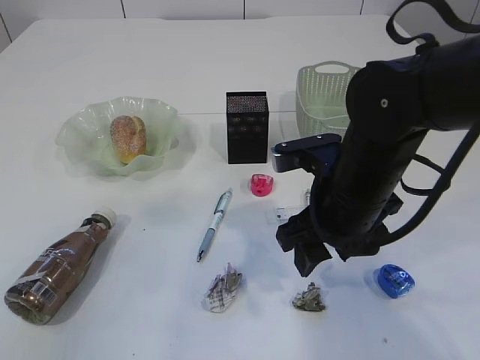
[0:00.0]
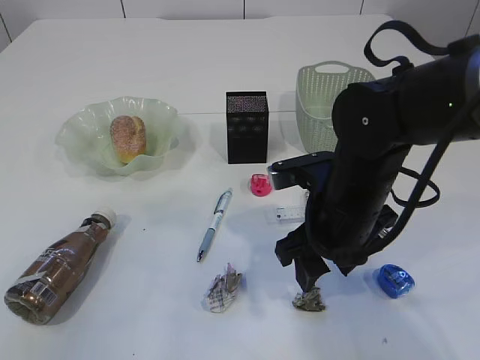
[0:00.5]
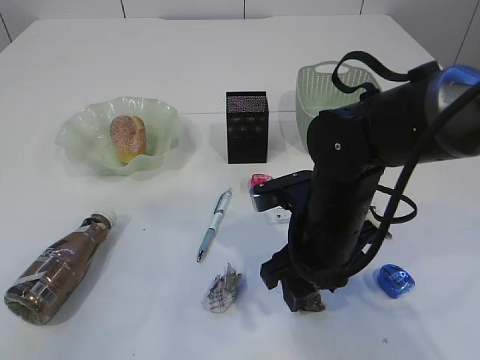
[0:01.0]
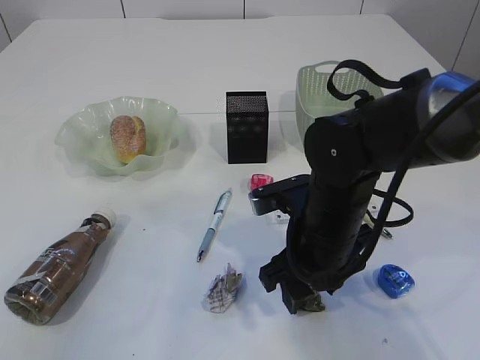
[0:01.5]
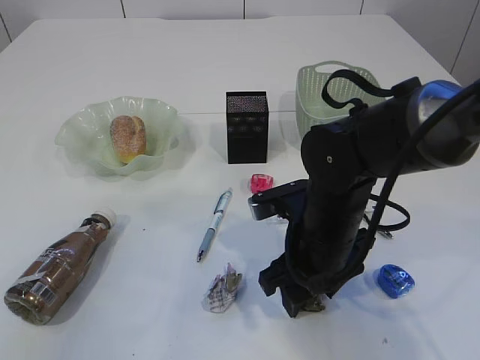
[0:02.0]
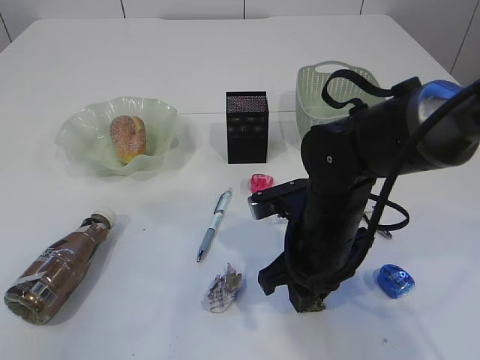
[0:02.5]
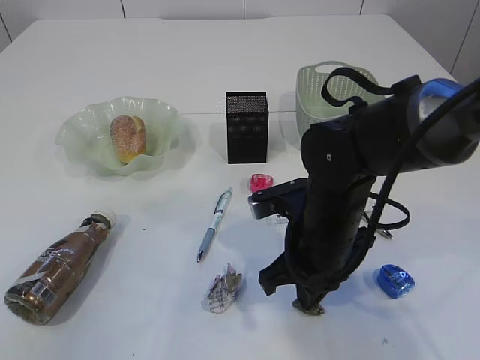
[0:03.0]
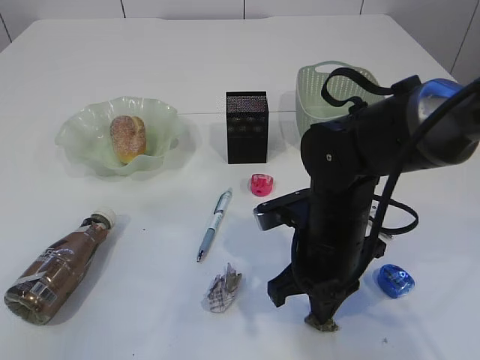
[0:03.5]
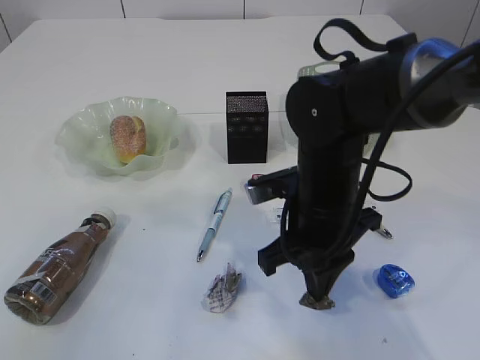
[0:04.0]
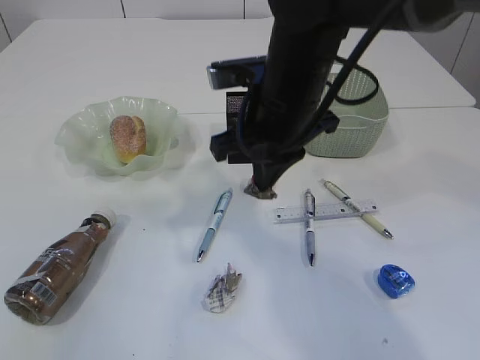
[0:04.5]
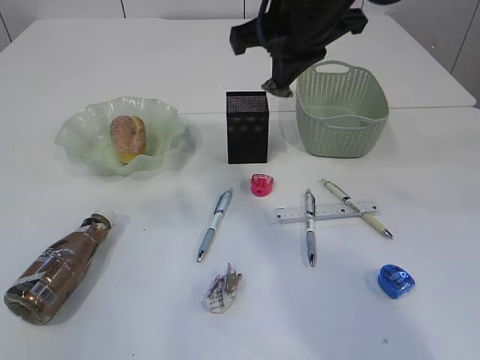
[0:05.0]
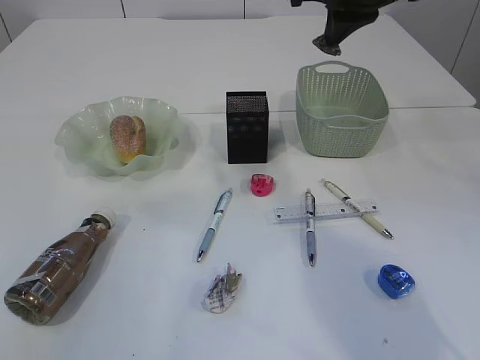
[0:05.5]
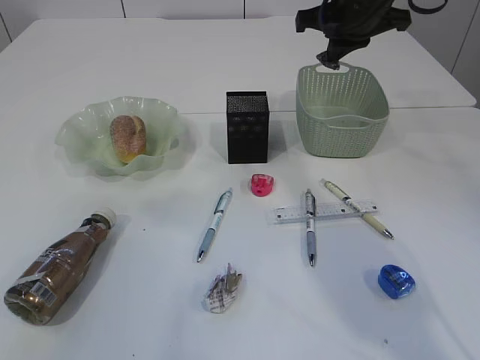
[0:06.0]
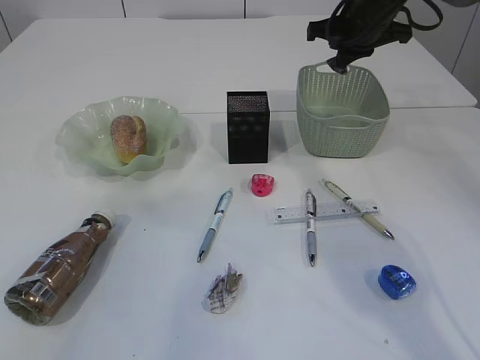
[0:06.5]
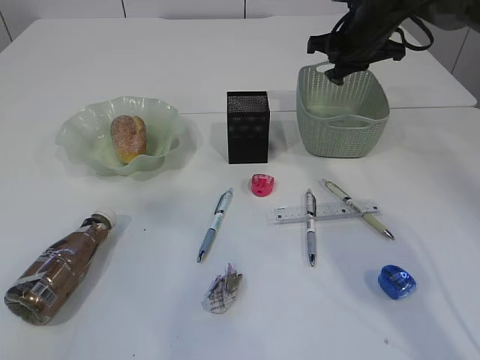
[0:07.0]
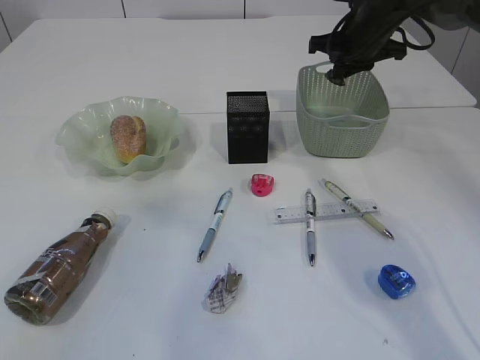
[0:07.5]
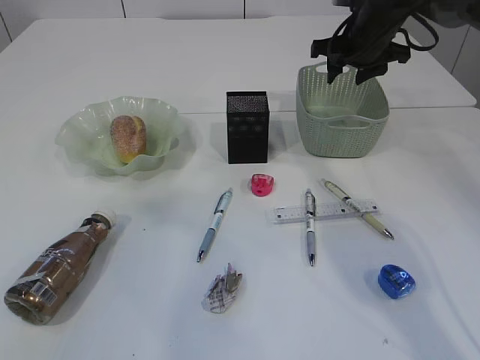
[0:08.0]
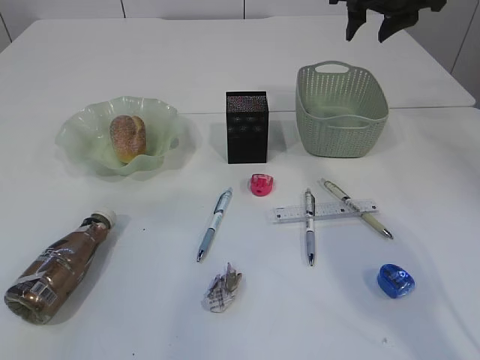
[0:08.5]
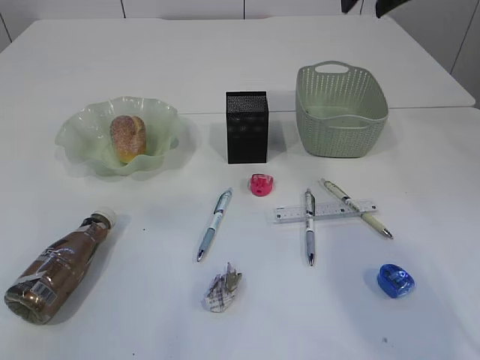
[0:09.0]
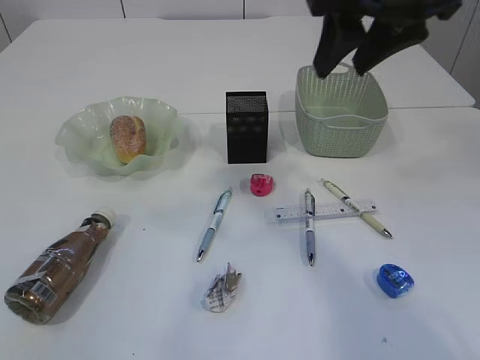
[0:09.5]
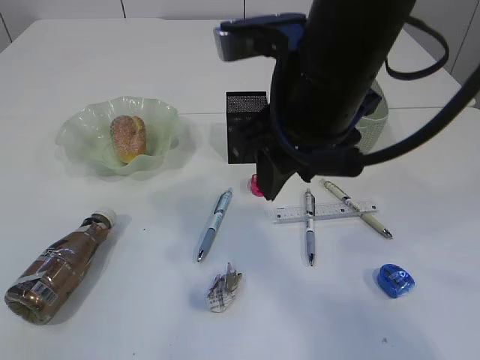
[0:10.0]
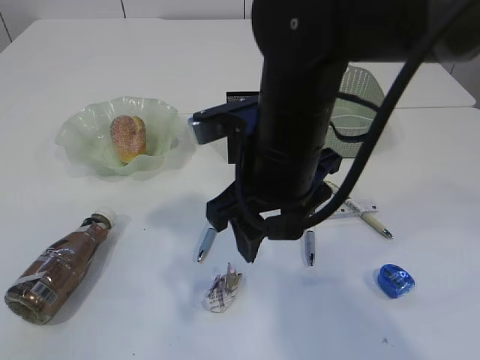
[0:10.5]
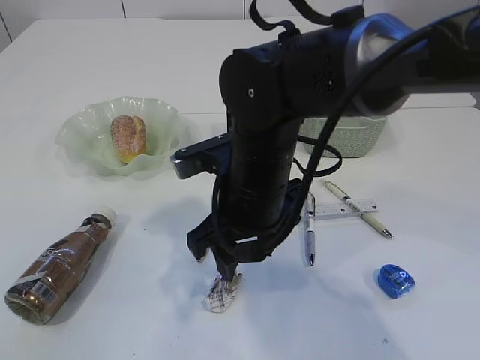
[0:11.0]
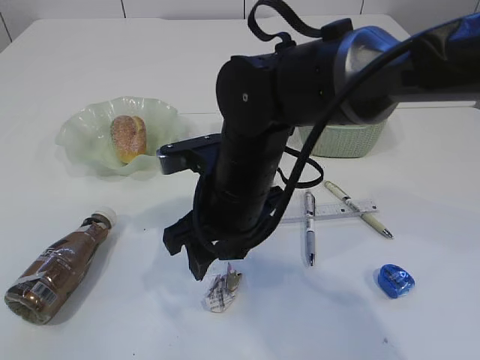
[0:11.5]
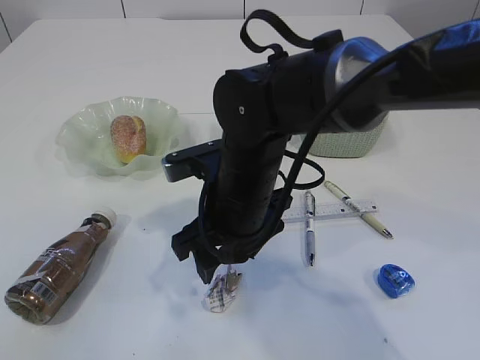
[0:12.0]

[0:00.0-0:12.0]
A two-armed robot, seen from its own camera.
Step, 0:00.0 to 0:04.0: Pick up the waste paper.
Step, 0:04.5 to 0:07.0: Place the waste paper in the basket.
0:00.0 to 0:02.0: The right gripper is displaced downward by approximately 5 cm.
0:02.0 to 0:04.0: The right gripper closes its fingers.
0:04.0 to 0:06.0: The right gripper travels forward, upward and to the right by roughly 25 cm.
0:06.0 to 0:08.0: The right gripper heads downward and forward, covering roughly 10 cm, and opens.
0:08.0 to 0:10.0: The right gripper shifts approximately 30 cm backward and to the left.
0:10.0 to 0:12.0: The right gripper moves downward and to the left, approximately 15 cm.

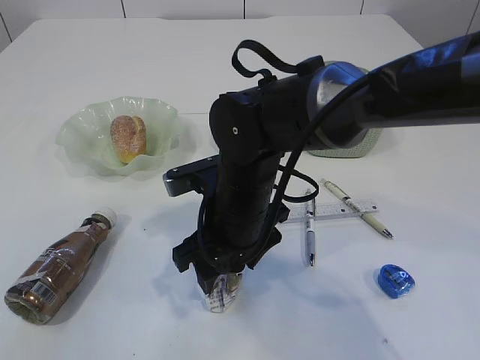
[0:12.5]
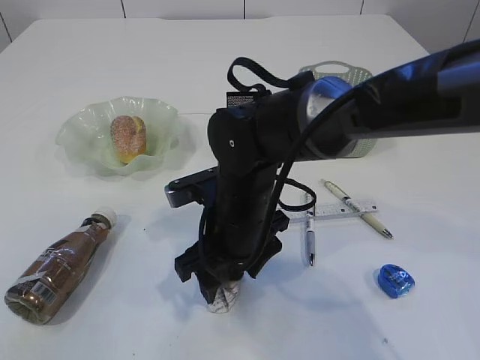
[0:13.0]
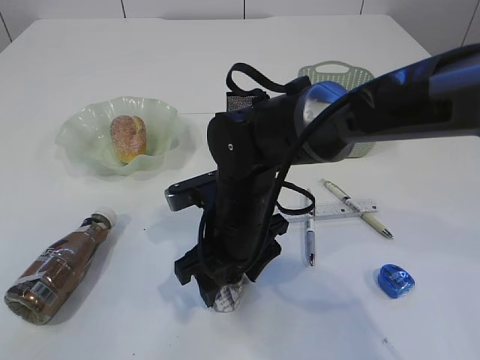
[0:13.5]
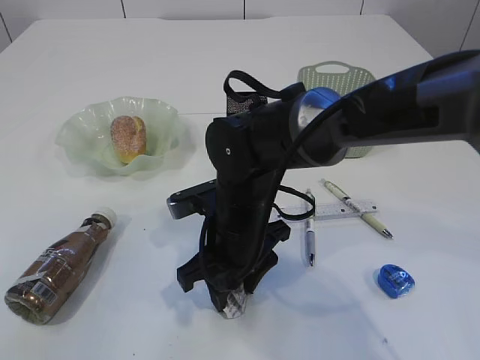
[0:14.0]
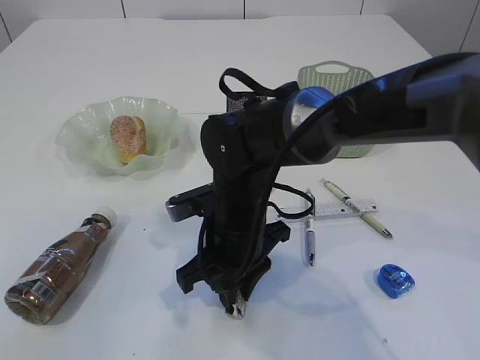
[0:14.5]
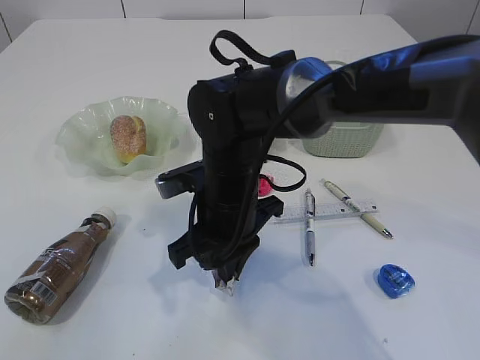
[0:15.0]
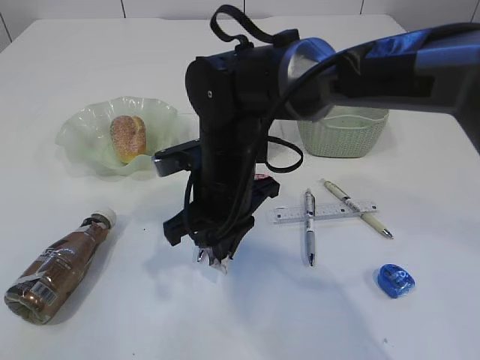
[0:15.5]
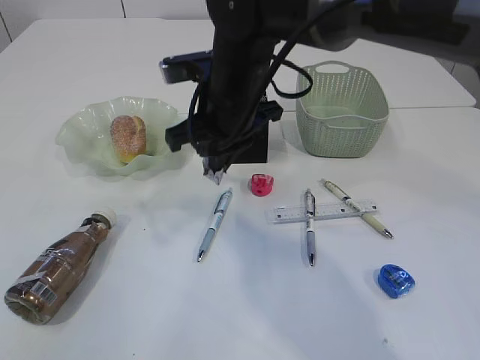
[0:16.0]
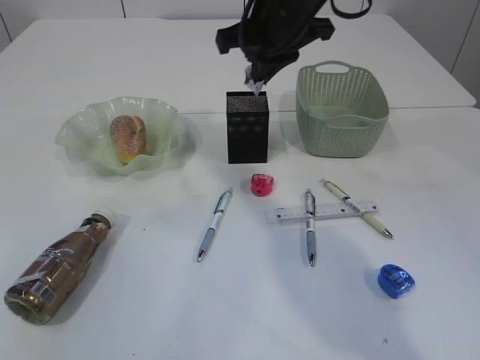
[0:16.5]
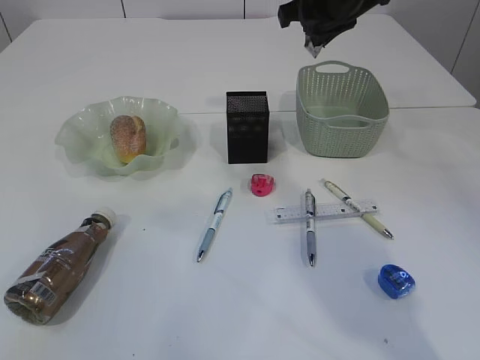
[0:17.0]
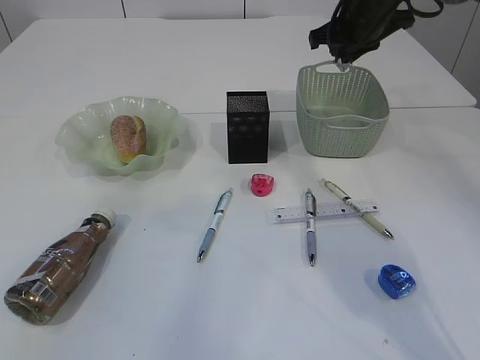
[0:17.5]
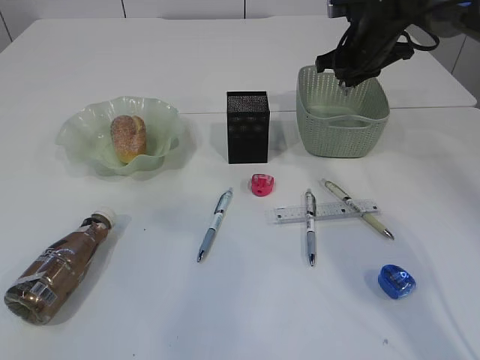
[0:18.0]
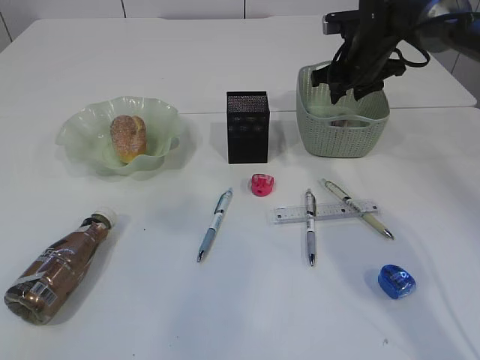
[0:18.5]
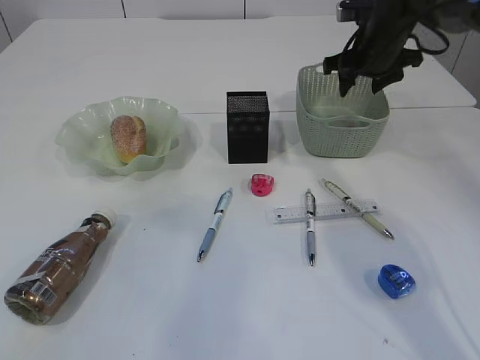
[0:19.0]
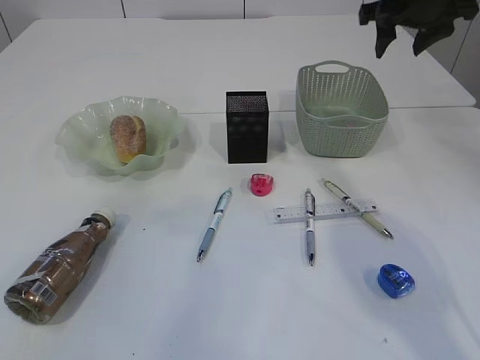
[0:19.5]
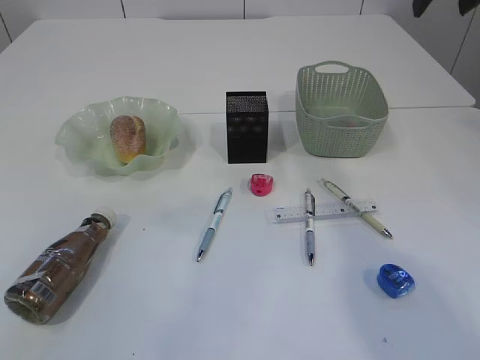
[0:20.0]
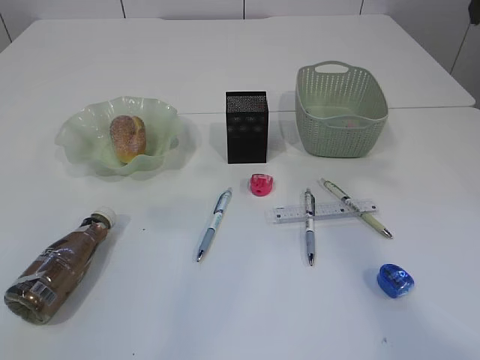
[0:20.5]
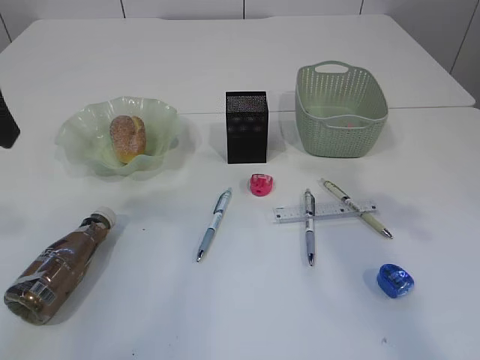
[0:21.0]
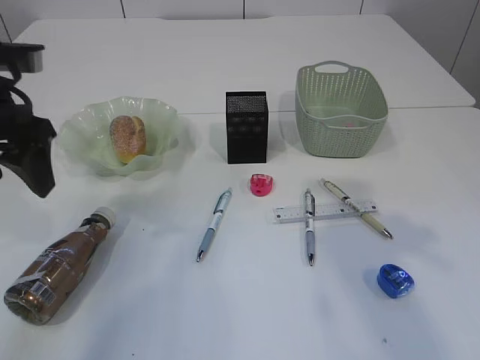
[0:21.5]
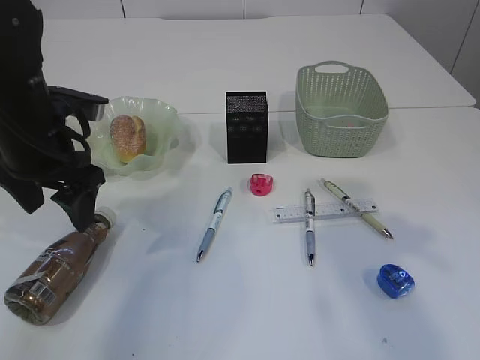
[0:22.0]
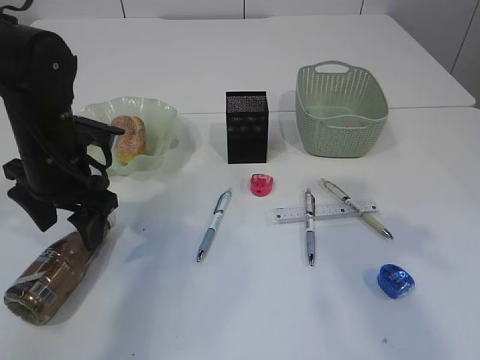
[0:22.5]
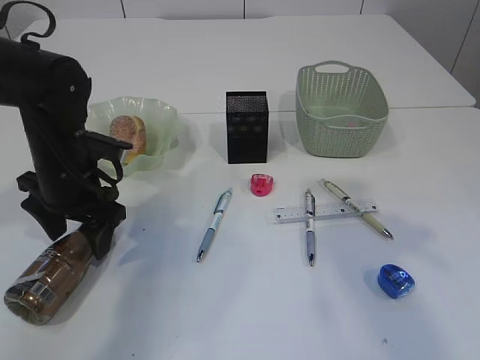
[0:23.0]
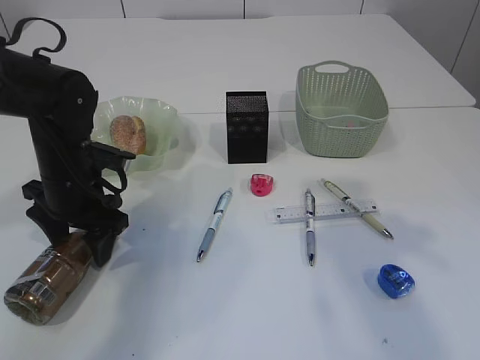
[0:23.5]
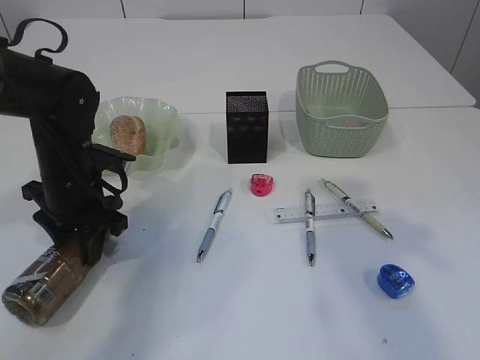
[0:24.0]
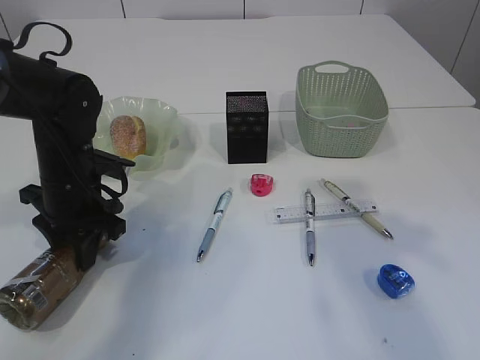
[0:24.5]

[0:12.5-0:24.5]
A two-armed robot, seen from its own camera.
Step, 0:12.5 to 0:15.5: Pick up the waste paper.
Step, 0:16.0 to 0:19.0: Place the waste paper in the basket.
0:12.5 to 0:14.5: The right gripper closes up.
0:14.5 to 0:16.5: The right gripper travels upward and forward by some 20 cm, and closes.
0:16.5 to 0:18.5: The right gripper is displaced to the right, forward and downward by approximately 20 cm, and opens its fingers.
0:18.5 to 0:20.5: The right gripper moves backward and upward, approximately 30 cm.
0:20.5 to 0:22.5: The left gripper goes roughly 30 cm downward and forward; the right gripper travels backward by about 10 cm.
0:22.5 to 0:24.5: The left gripper travels downward by roughly 5 cm, and closes up.

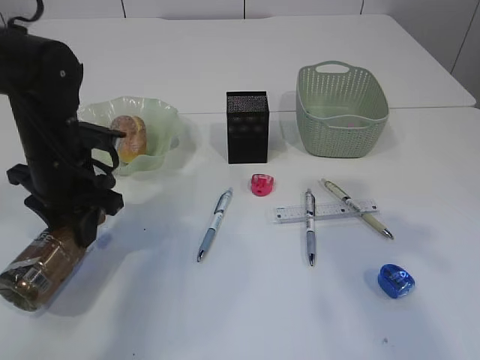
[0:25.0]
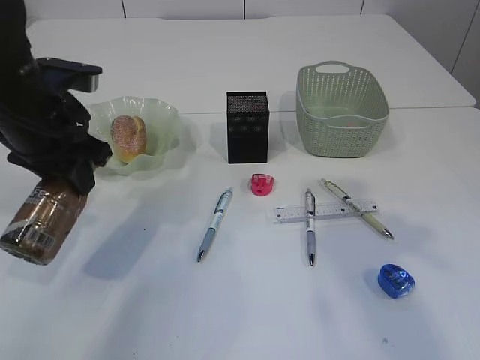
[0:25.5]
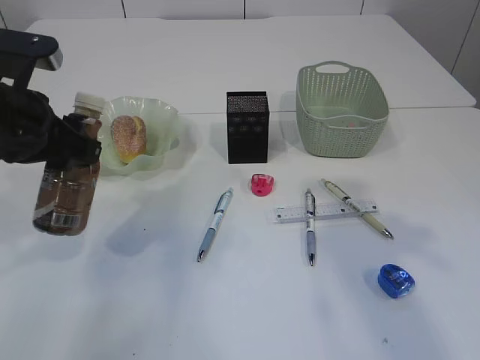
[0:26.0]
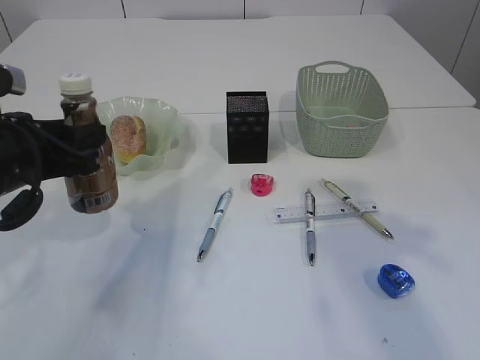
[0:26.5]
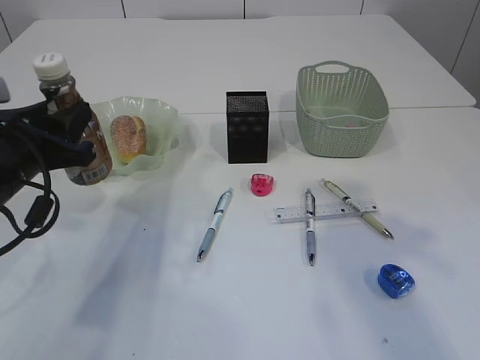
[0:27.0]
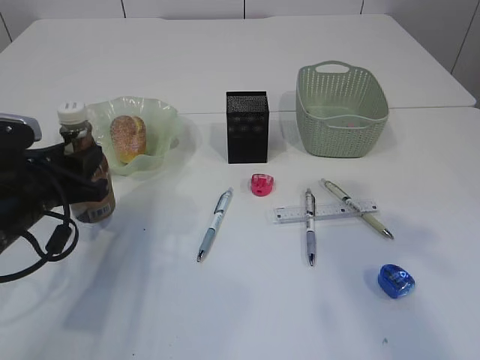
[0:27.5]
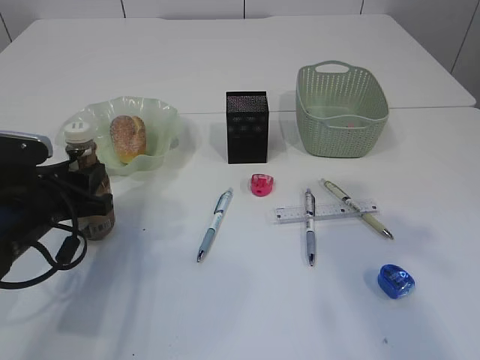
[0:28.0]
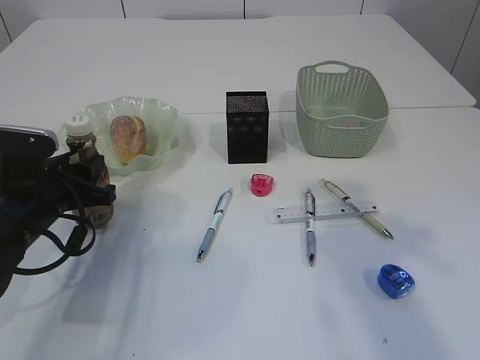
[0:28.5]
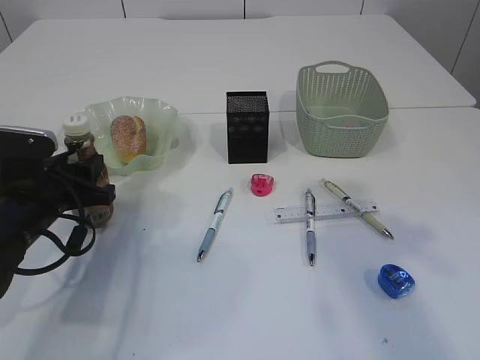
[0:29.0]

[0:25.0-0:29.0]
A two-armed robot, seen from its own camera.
0:25.0 to 0:27.0: The left gripper shifts about 5 cm backward, and moves some 10 cm upward and comes back.
0:27.0 to 0:29.0: The left gripper moves downward, about 10 cm.
